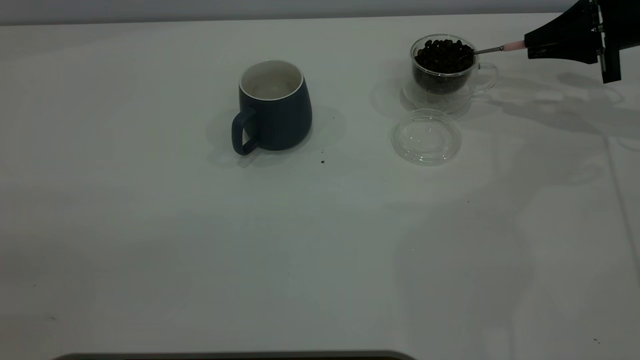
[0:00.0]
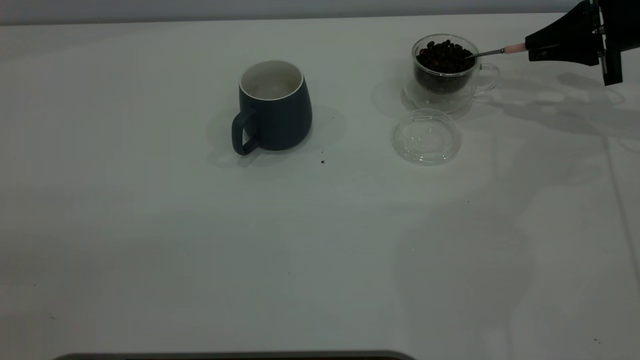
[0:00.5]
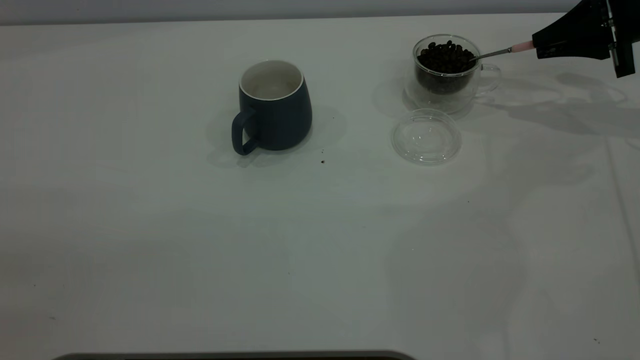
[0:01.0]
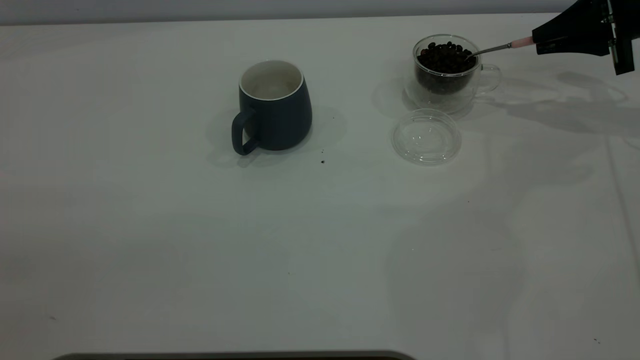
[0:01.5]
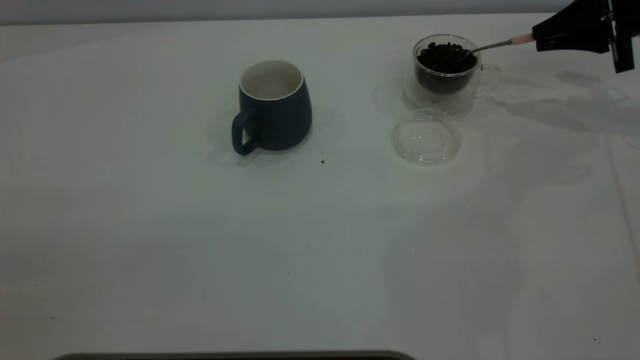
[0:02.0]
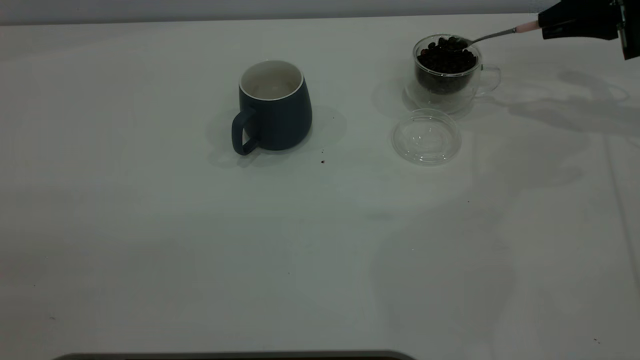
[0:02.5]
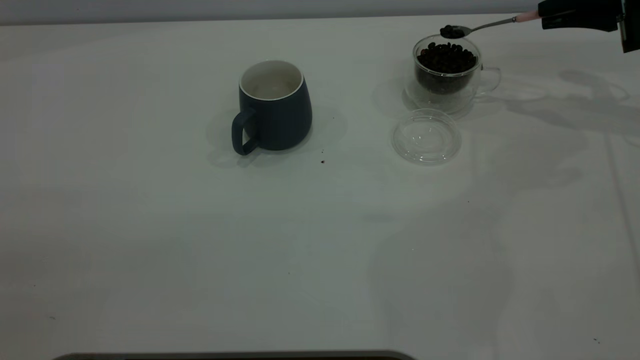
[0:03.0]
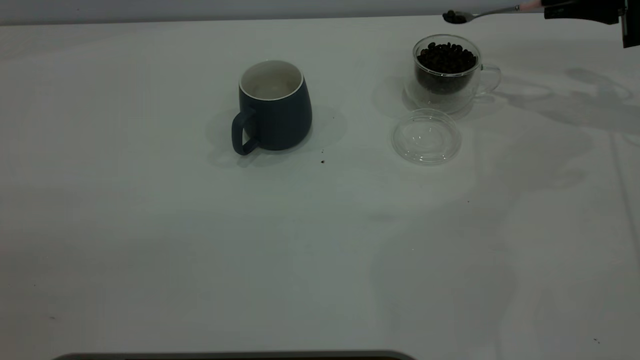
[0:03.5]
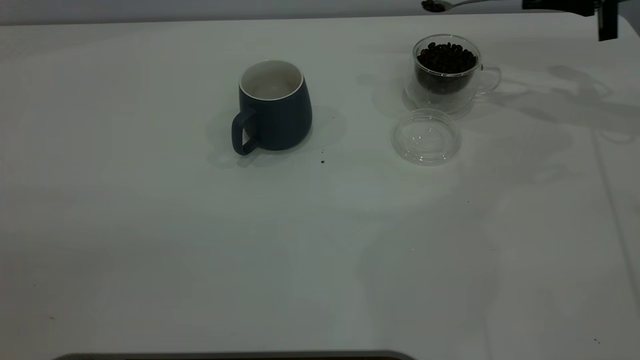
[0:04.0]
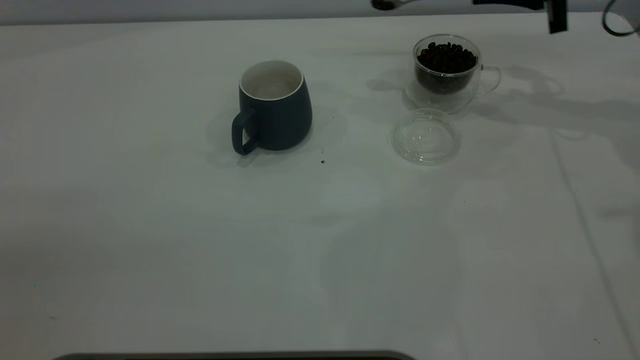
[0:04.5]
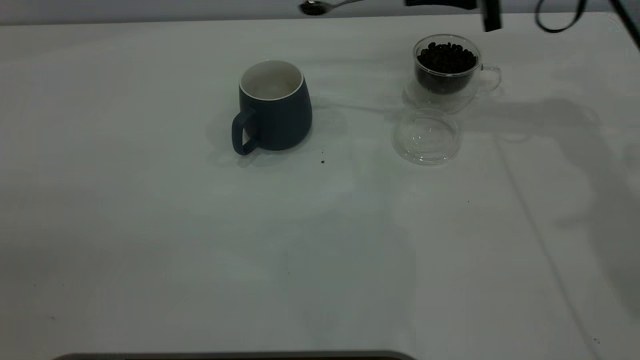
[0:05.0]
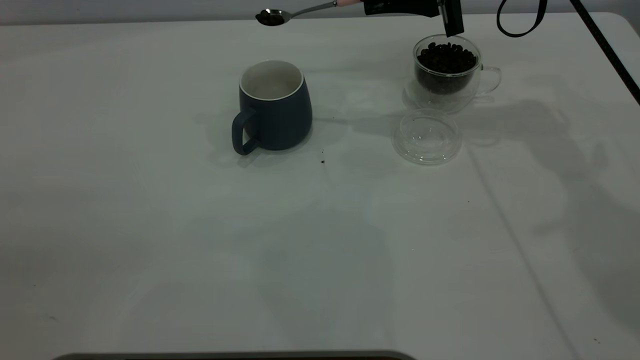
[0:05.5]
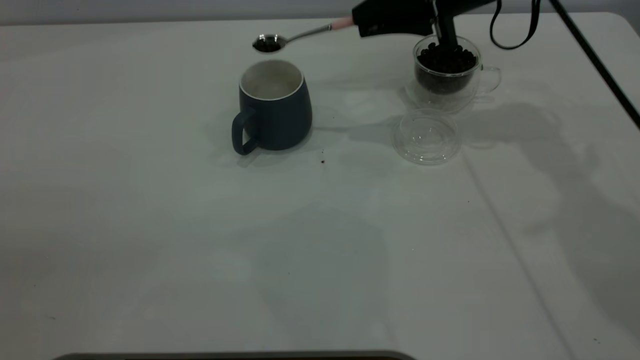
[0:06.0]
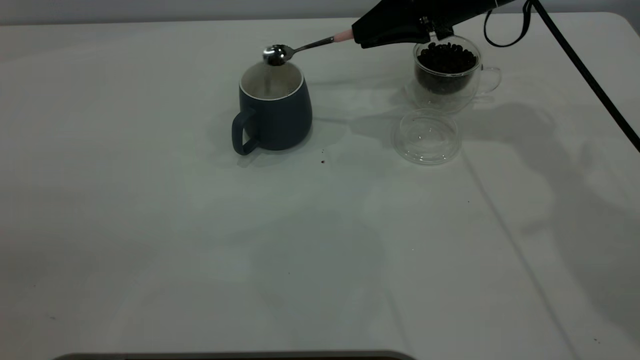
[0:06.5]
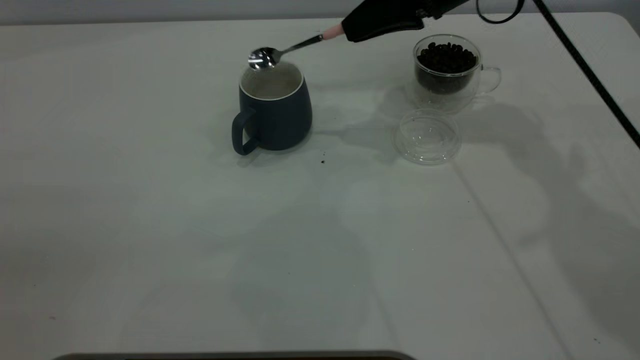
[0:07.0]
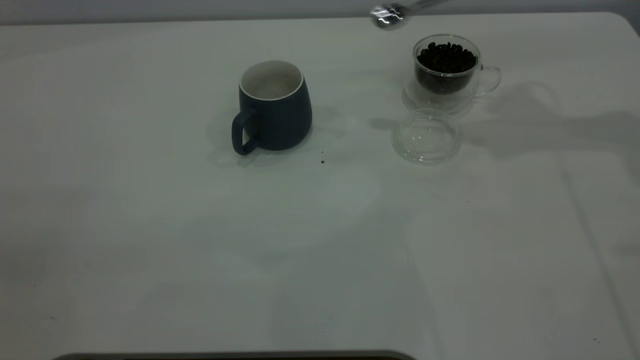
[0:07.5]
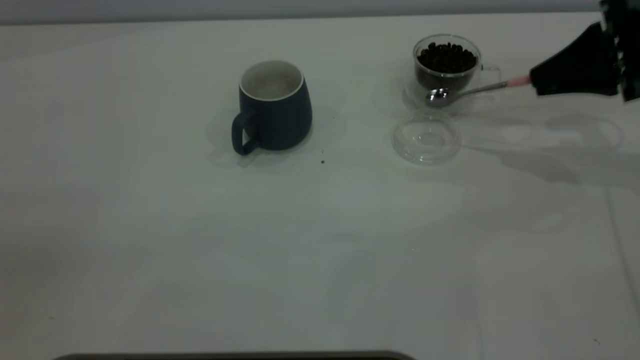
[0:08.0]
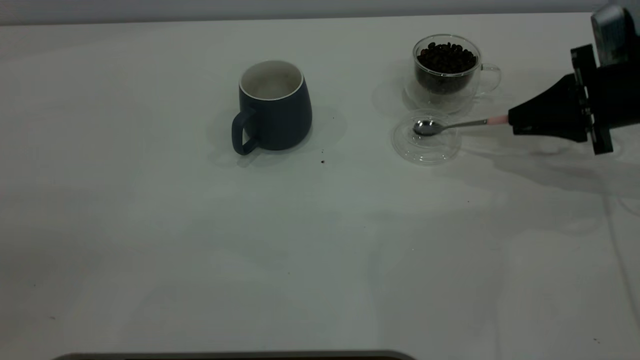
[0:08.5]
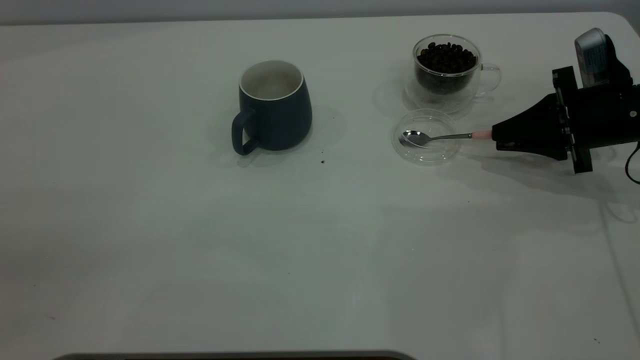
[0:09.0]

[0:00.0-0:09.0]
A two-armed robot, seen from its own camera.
Task of the whole recording: the left gripper place the grey cup in the center of the table, the right gripper take the pink spoon from the cup lid and scoop out the coffee beans from the coffee cup and put them into the grey cup, the right gripper put the spoon back into the cup lid.
Step, 0:00.0 to 0:07.0: Scoop a spoonful of beans into the cup.
0:00.0 to 0:02.0: The grippers stay close to where they were, moving slightly.
0:02.0 to 0:04.5: The right gripper moves to the left, roughly 10 cm.
0:04.5 to 0:07.0: The right gripper travels to the left by some 15 cm.
0:07.0 to 0:09.0: The right gripper shifts approximately 25 cm to the right, downward and backward.

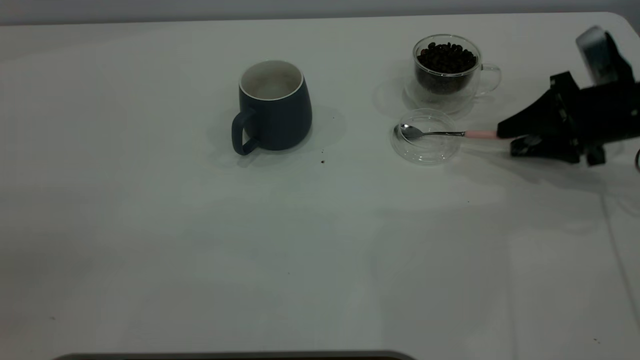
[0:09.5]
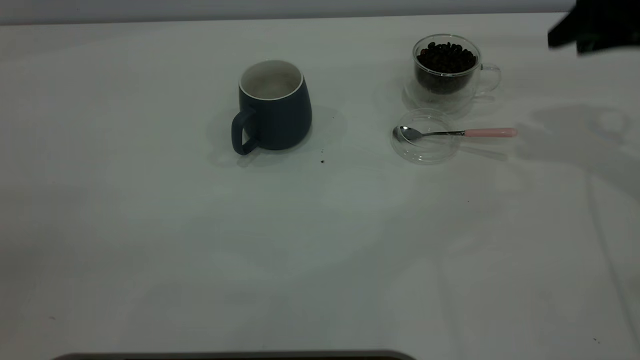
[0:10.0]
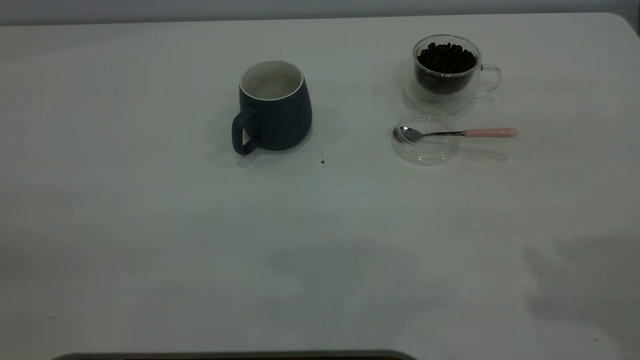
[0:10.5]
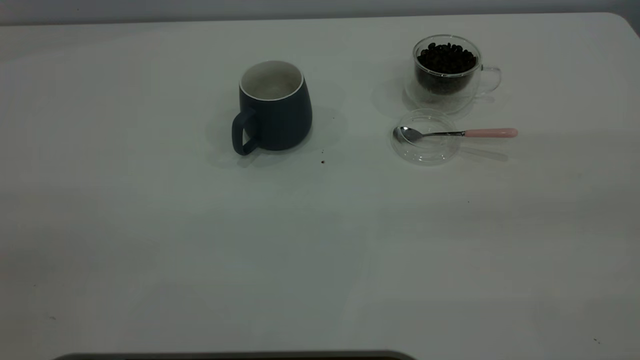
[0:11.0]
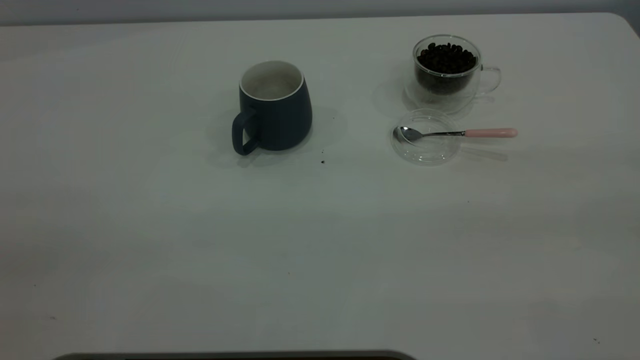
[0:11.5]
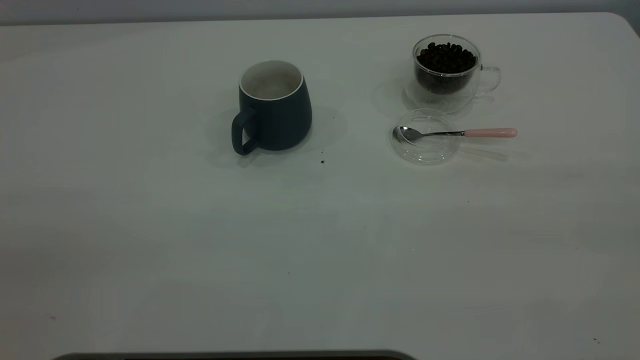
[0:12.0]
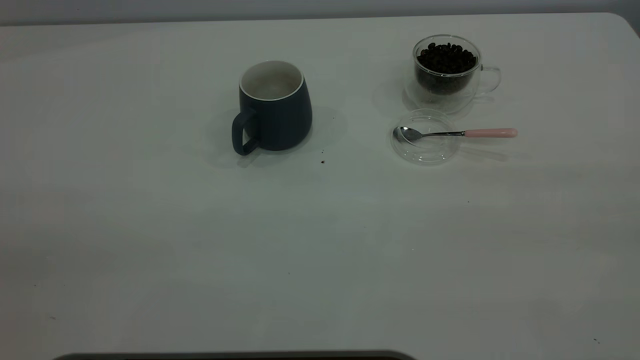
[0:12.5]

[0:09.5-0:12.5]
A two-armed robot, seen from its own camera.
Task of the whole recording: the left gripper place the grey cup in the center of the table, the right gripper take the pink spoon from the cup lid and scoop out the coffee beans from the coffee cup and put them into the grey cup, the right gripper put the spoon back into the cup lid.
0:09.5 to 0:11.0: The right gripper goes some 40 cm backward and upward.

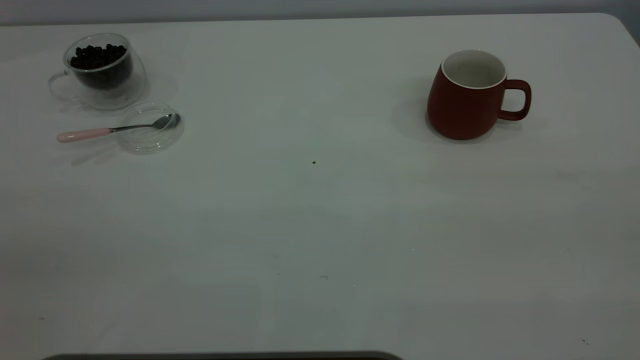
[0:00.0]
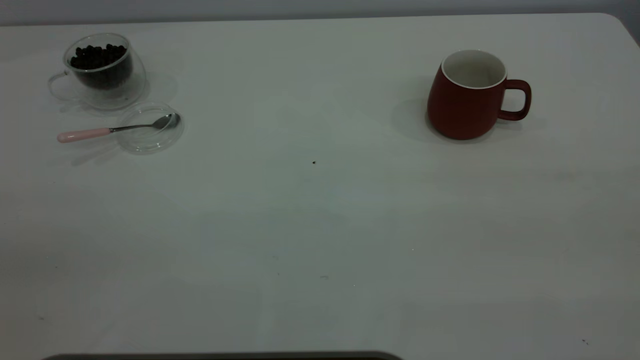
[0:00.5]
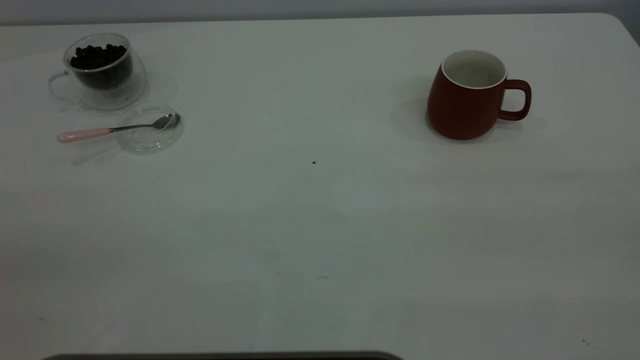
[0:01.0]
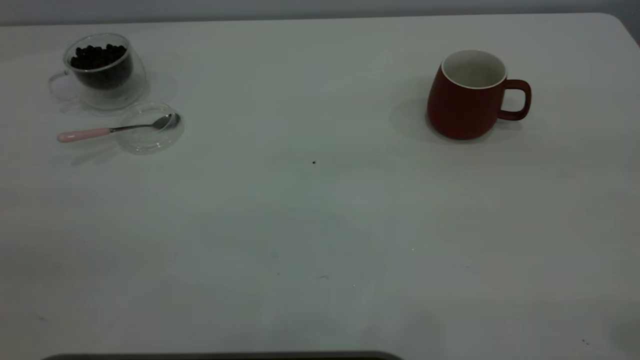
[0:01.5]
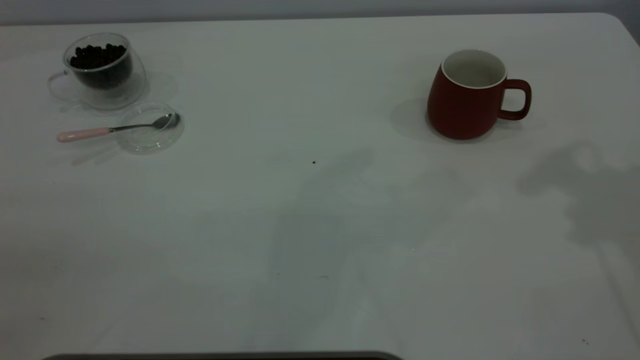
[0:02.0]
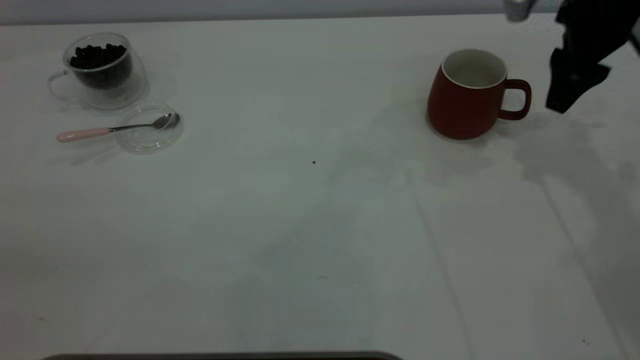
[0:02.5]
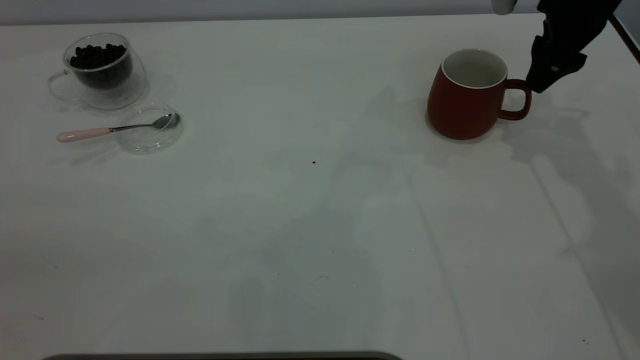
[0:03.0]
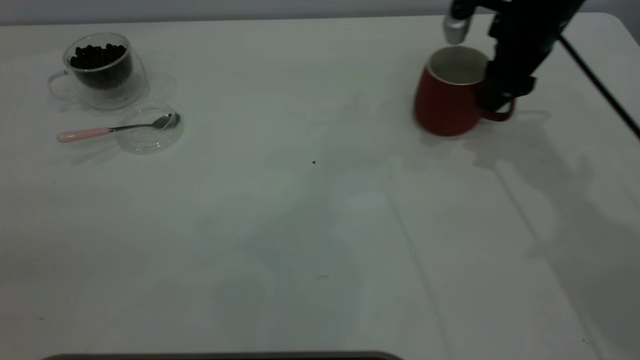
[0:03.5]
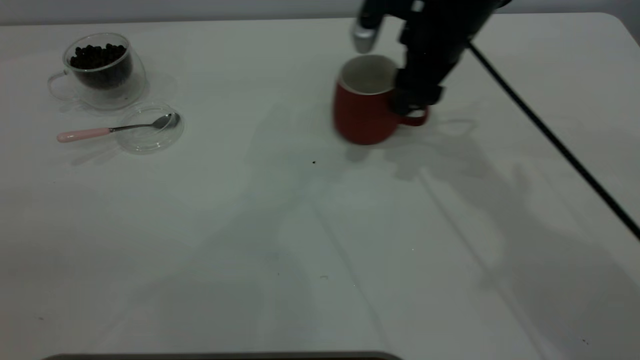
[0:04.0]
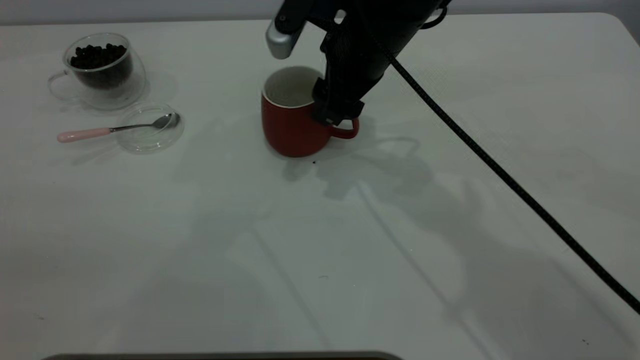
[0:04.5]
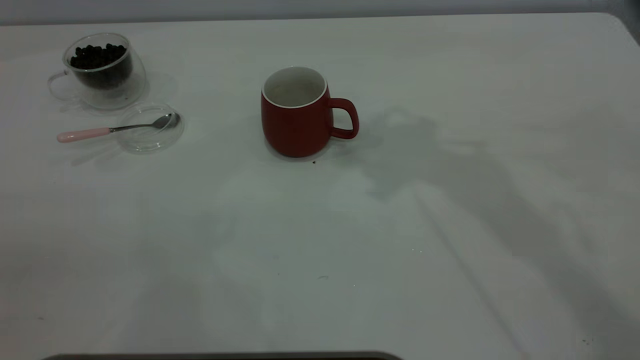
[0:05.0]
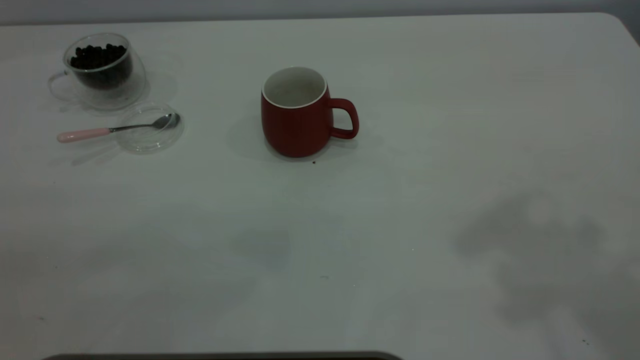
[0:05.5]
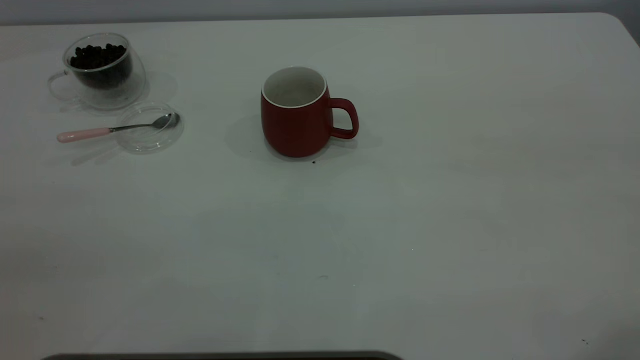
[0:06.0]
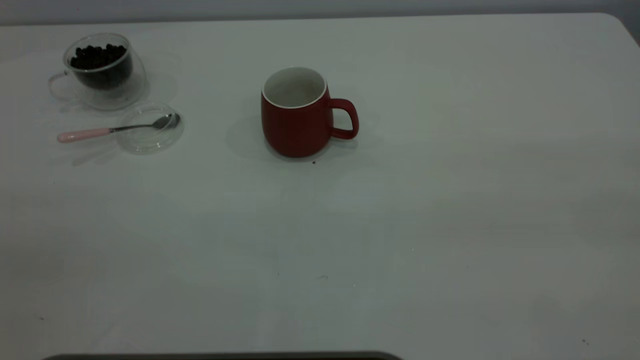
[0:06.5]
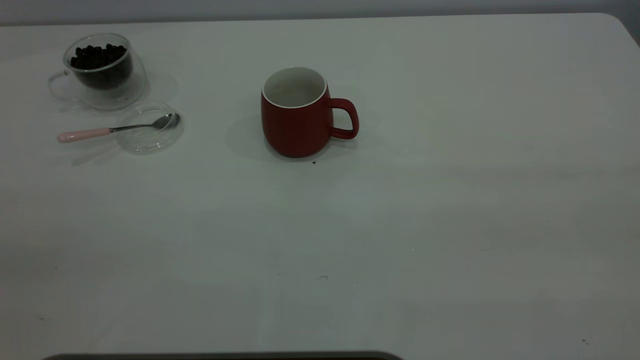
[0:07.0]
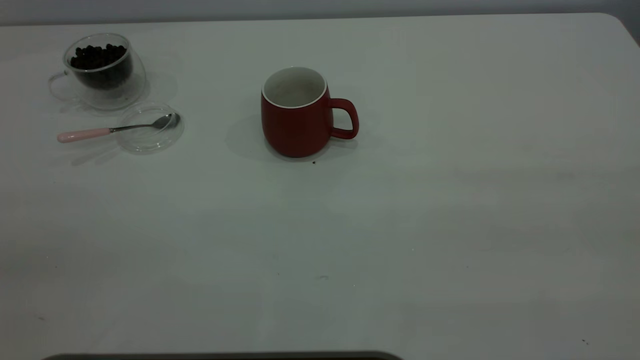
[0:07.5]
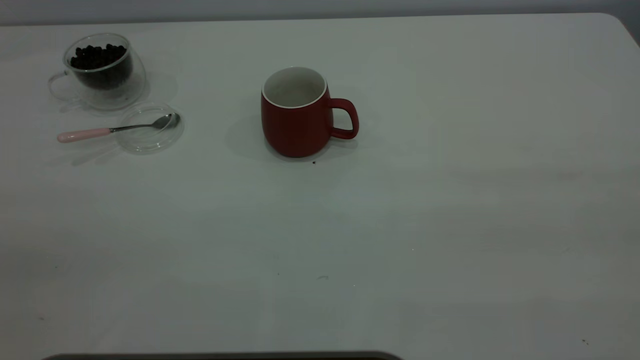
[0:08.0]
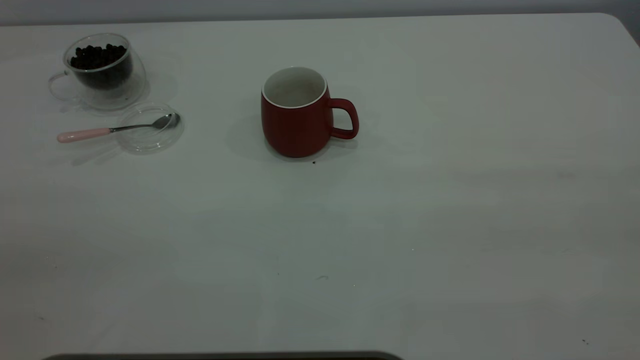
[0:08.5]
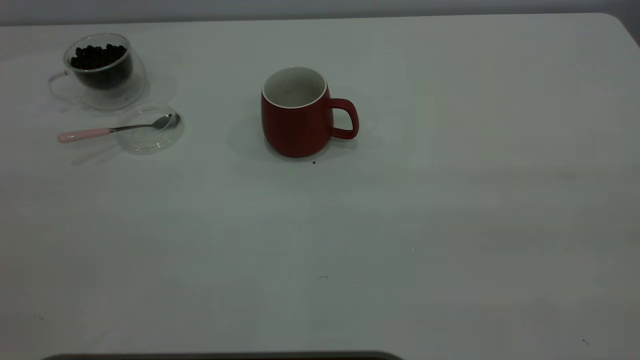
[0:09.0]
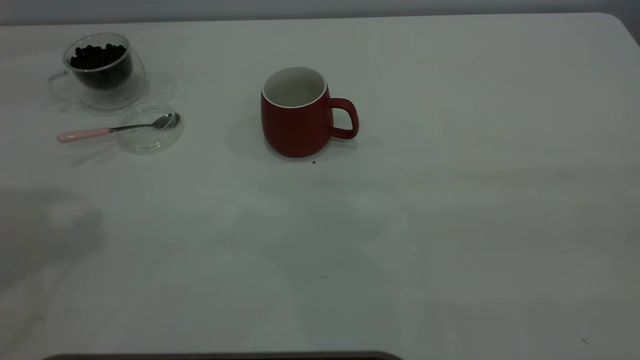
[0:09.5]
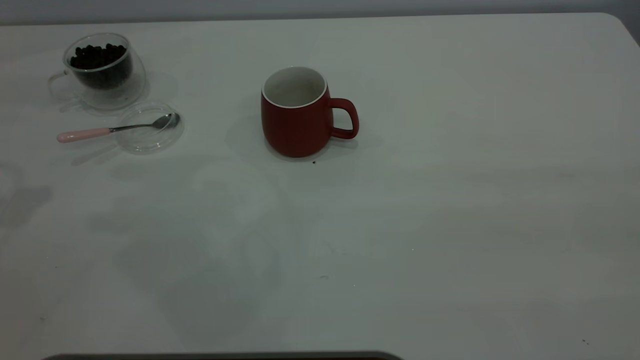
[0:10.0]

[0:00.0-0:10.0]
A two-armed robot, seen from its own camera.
Task of the whole recording: the right gripper place the red cup in the center of the table, the left gripper take the pink spoon from the cup lid and scoop out the coffee beans from the coffee cup and put them into the red cup, the left gripper put the spoon back into the cup lid.
Step, 0:00.0 to 0:04.5: Move the cup to the center of view.
0:02.0 to 0:04.0: The right gripper travels to the left, downward and forward by some 25 cm.
0:04.0 to 0:06.0: The right gripper shifts approximately 50 cm backward, upward and to the right.
